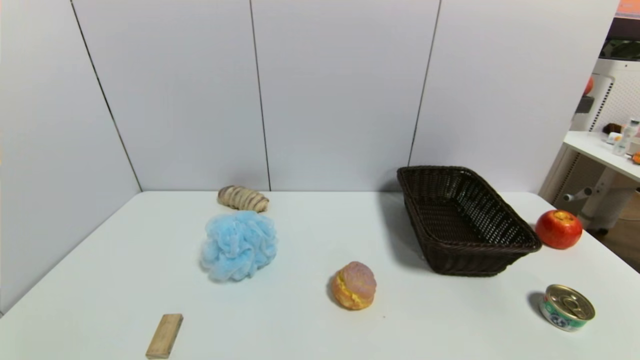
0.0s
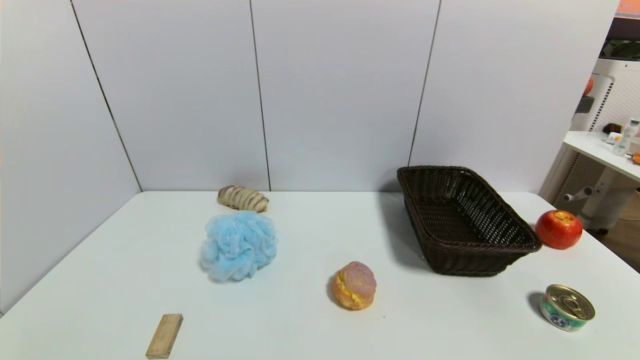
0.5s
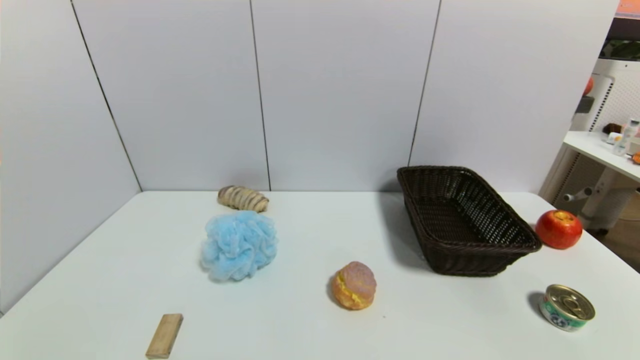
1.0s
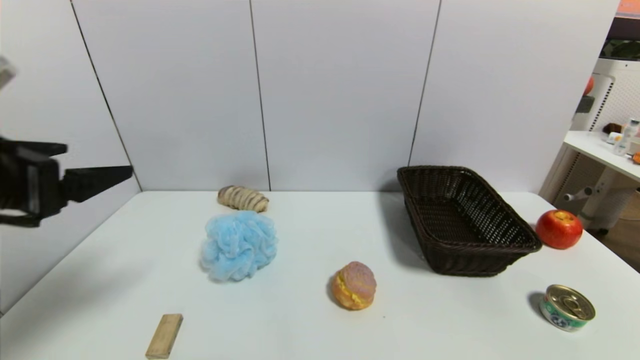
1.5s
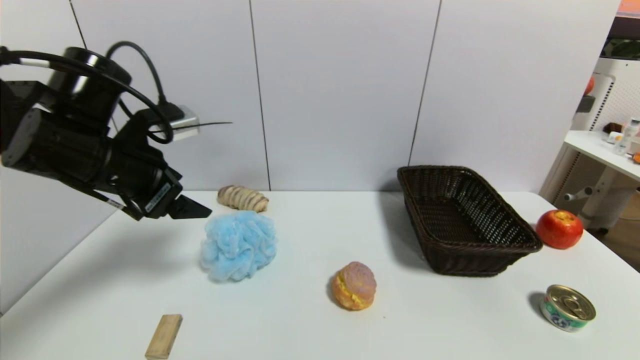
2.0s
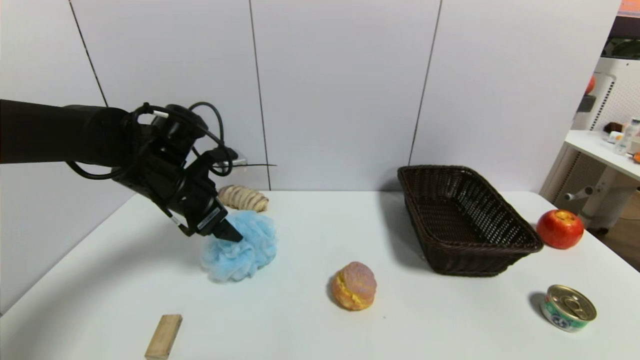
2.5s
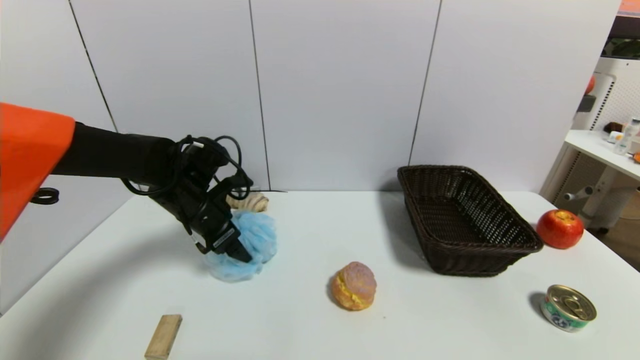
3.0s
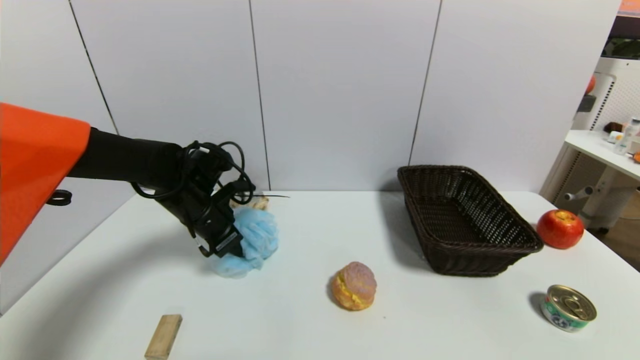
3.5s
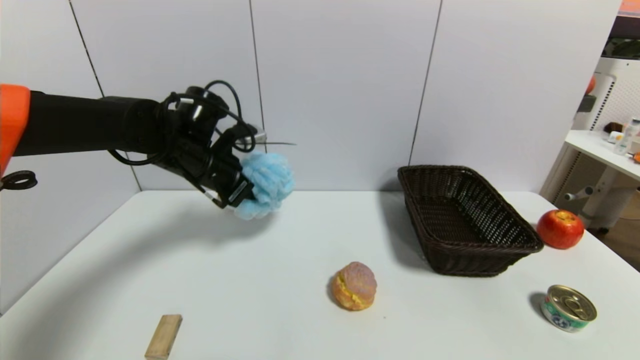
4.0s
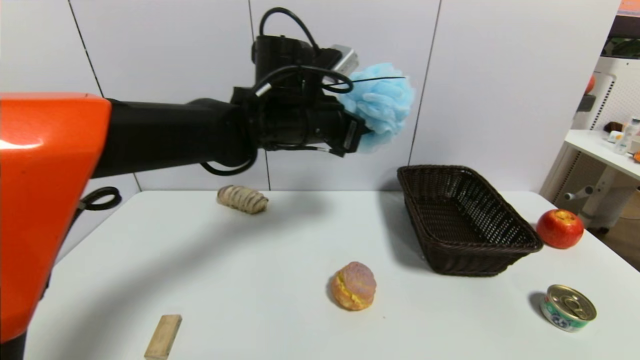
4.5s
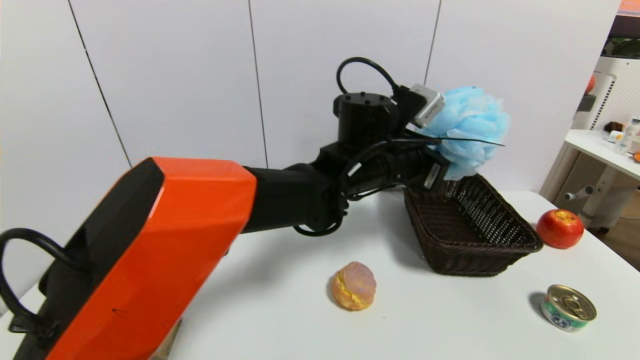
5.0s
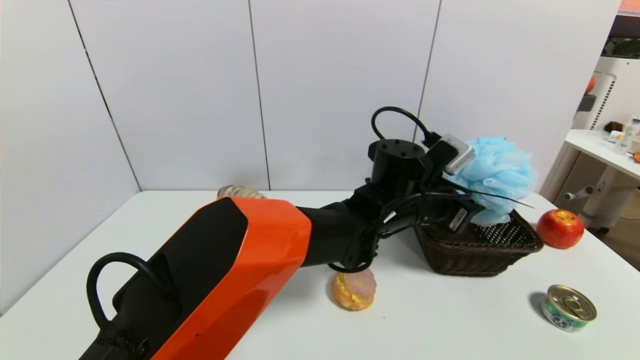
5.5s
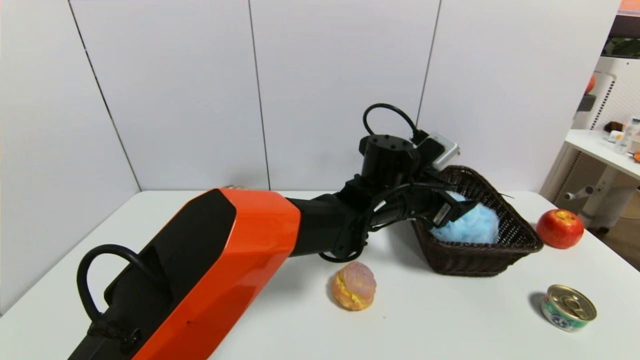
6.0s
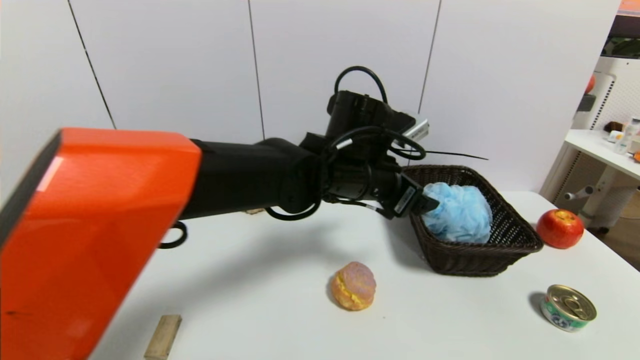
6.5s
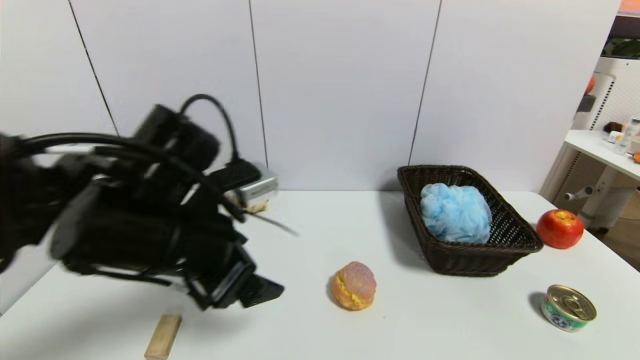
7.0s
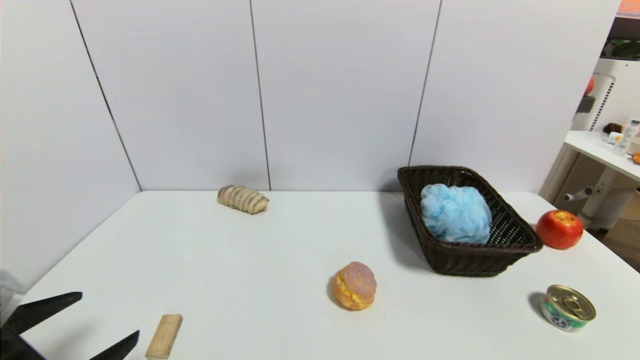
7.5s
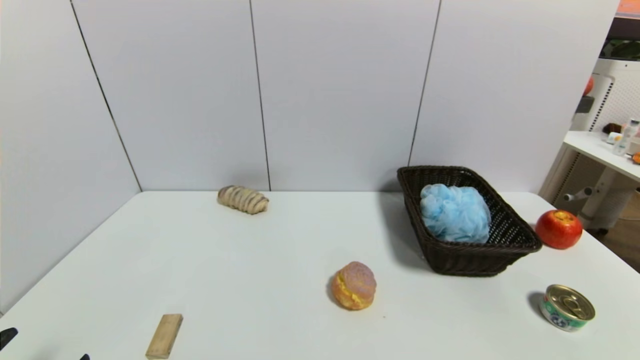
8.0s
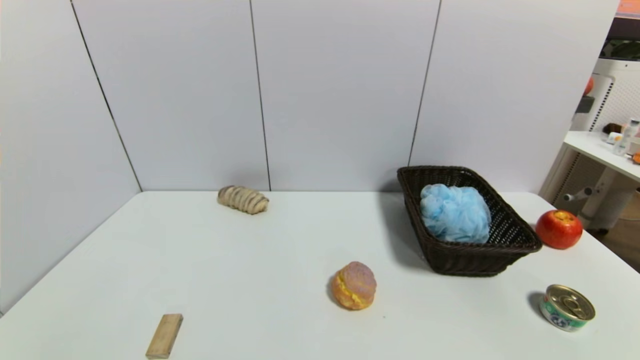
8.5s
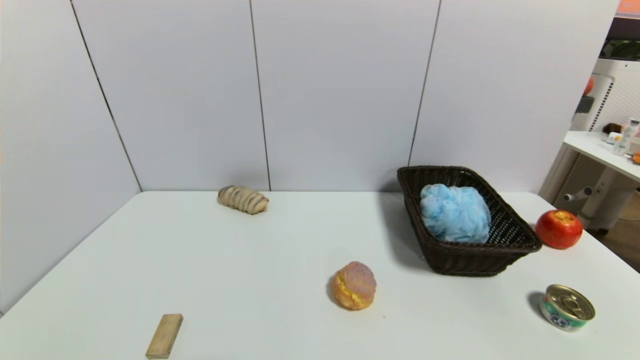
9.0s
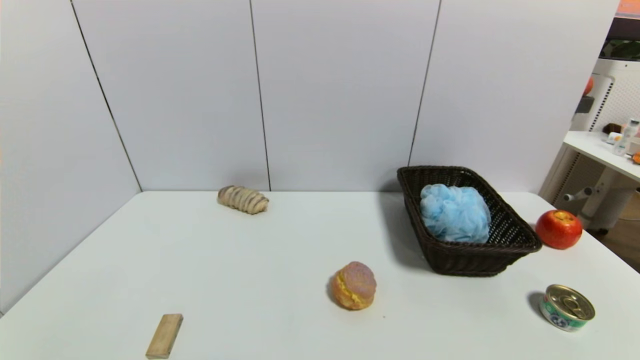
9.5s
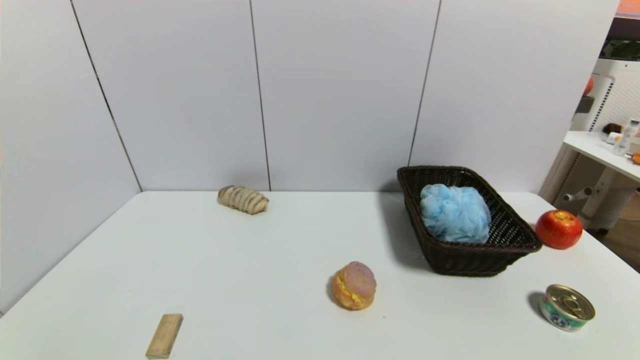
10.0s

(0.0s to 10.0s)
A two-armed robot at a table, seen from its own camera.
Task of the whole recording: use a gripper to pick the target object and place on the brown basket.
Step, 0.0s - 3.5s: Grasp the shower sphere with the left gripper.
Step, 4.0s - 6.0s: Place the shower sphere into the basket with the left gripper.
0.0s - 2.0s: The left gripper moves forward and upward, about 35 cm.
2.0s - 4.0s: The left gripper moves forward, to the right and downward, approximately 15 cm, and closes.
4.0s - 6.0s: The left gripper goes some 30 cm to the right, and opens up.
6.0s - 8.0s: The left gripper shifts about 50 cm to the left and backward.
